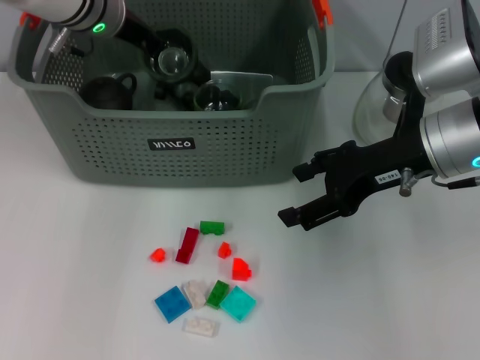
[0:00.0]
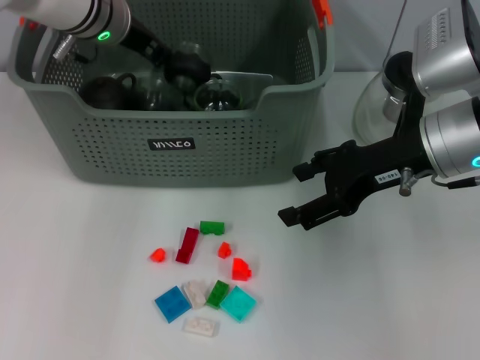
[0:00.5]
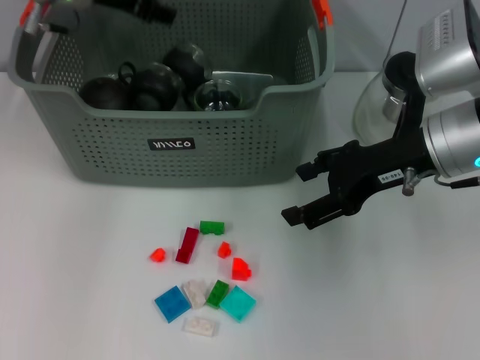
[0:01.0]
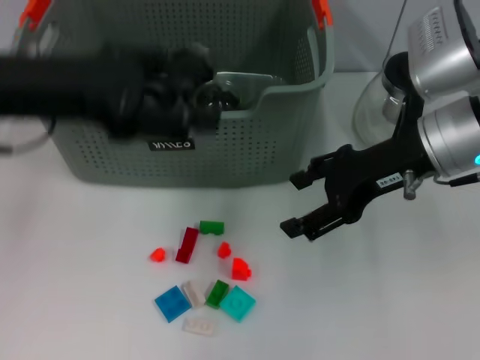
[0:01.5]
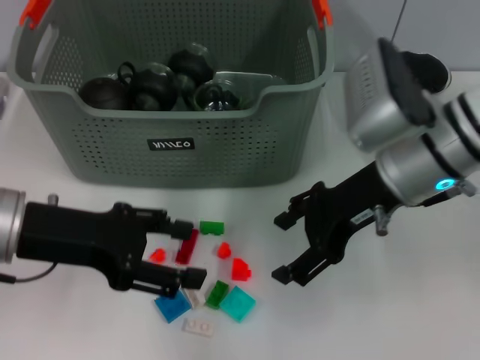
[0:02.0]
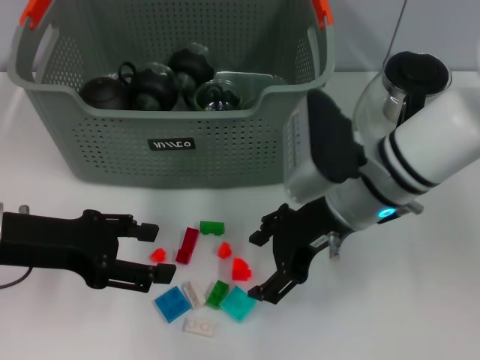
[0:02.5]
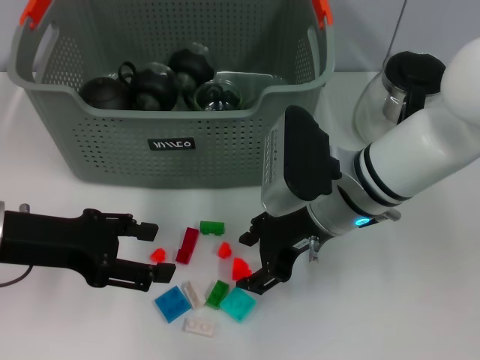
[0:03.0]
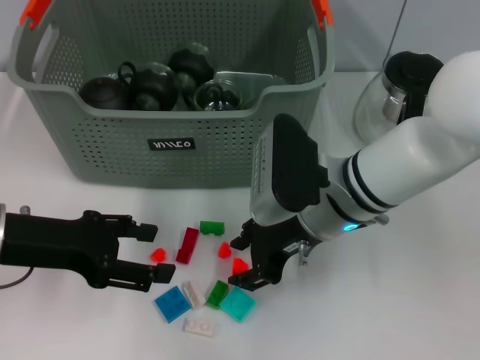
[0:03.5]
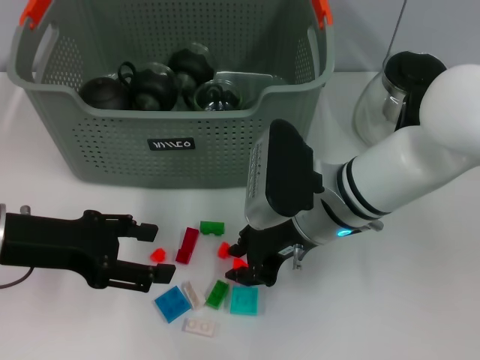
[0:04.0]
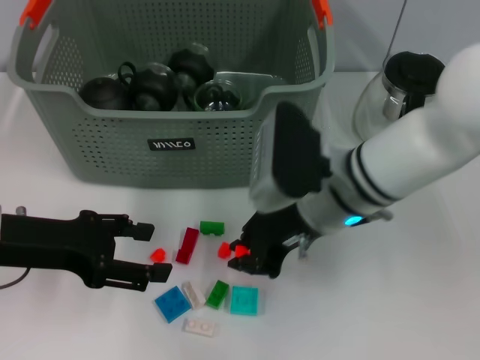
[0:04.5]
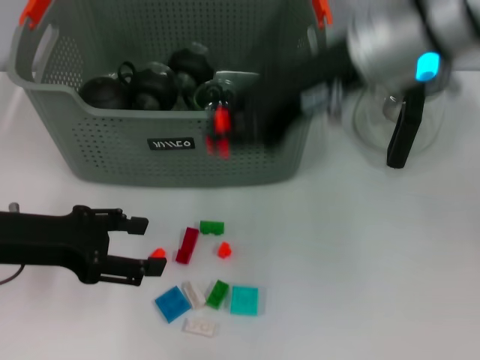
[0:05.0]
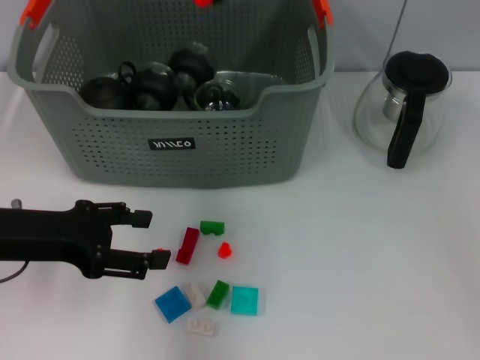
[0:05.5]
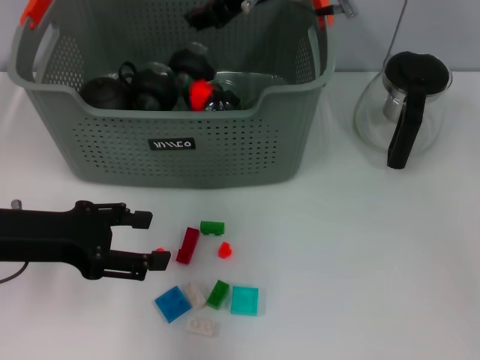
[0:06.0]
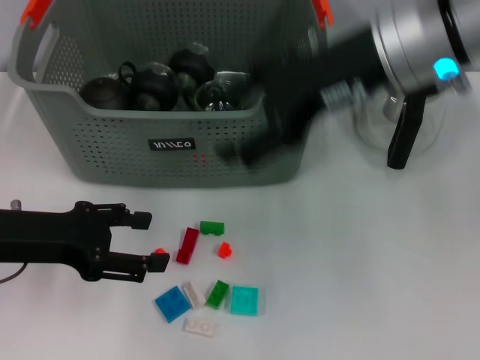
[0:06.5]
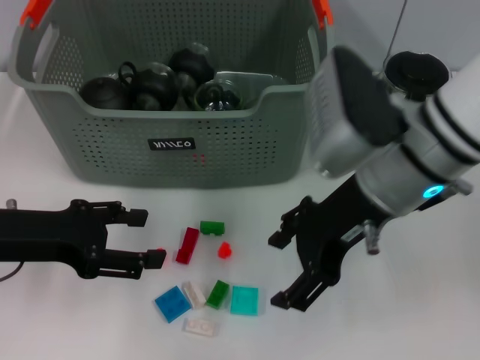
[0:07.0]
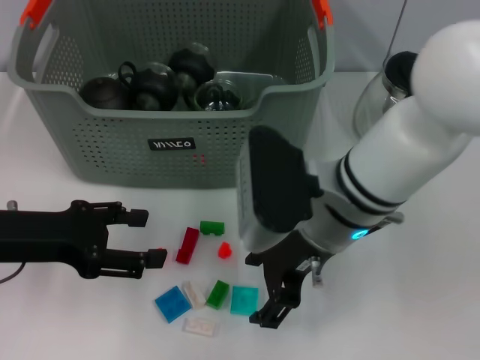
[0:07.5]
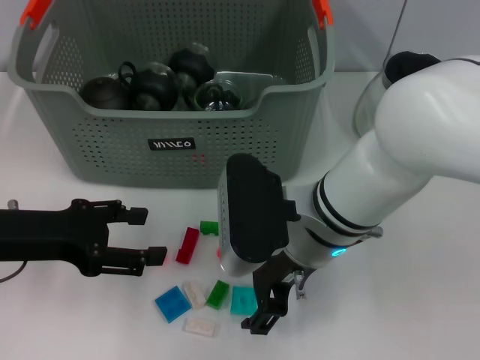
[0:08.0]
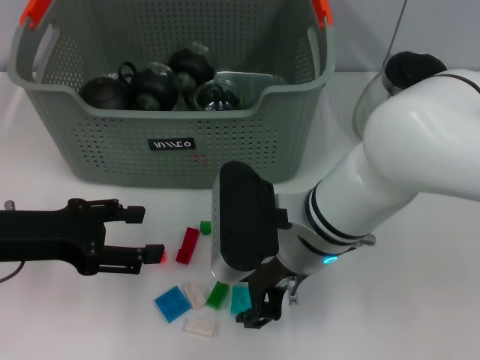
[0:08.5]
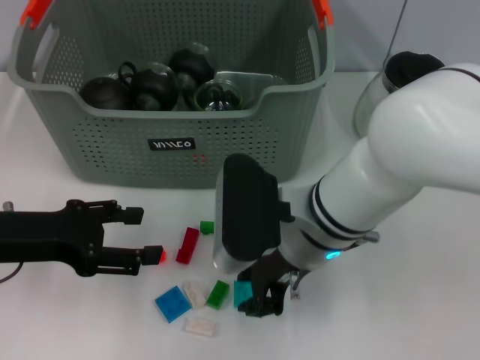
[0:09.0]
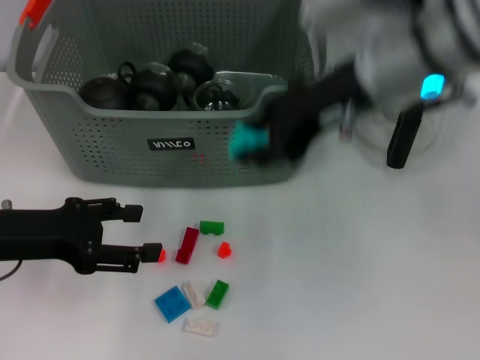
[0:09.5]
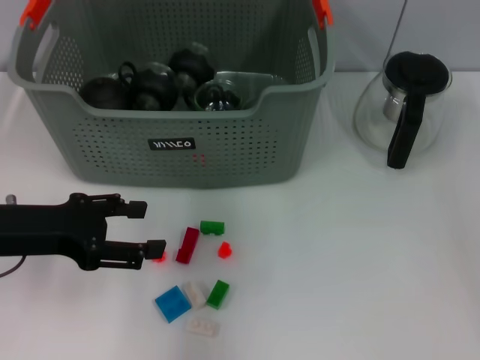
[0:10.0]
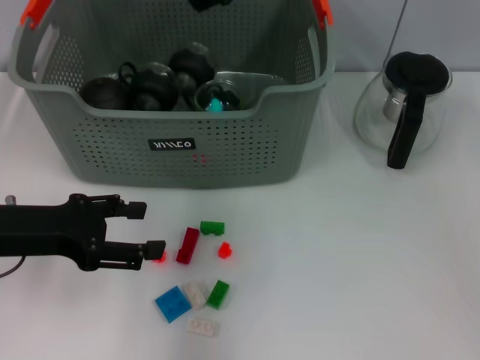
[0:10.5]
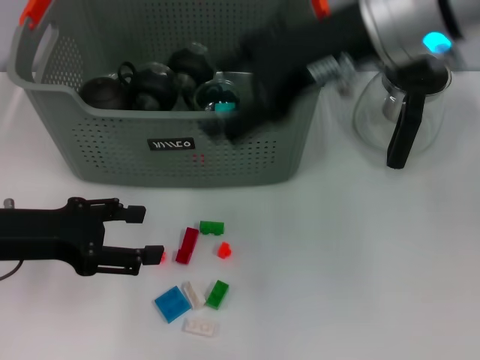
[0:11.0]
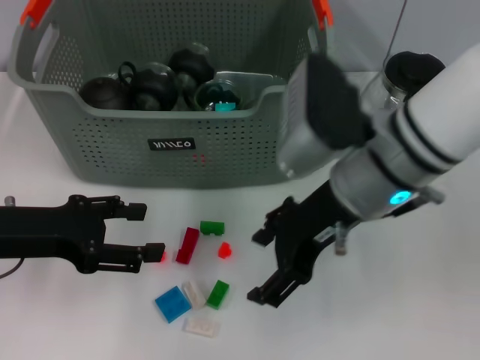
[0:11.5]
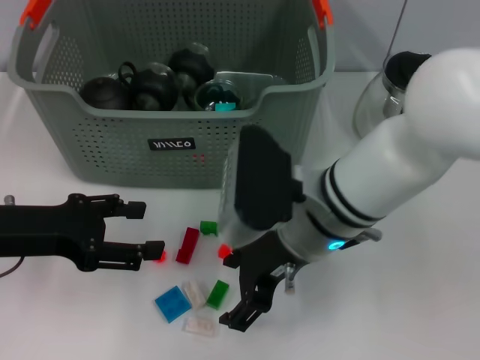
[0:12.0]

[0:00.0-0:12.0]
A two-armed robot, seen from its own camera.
Task of the whole recording: pick up the teacup on the table and place it into the storage bin, pick up the block on the table and place it into the storage bin.
Step, 0:01.0 to 0:04.0: Grasp the orange block with right gripper.
Step, 0:04.5 to 0:05.5: Place the orange block in the storage box with right gripper.
Step, 0:06.0 to 0:08.5: Grasp the light blue block with right gripper.
Step, 0:09.0 to 0:10.5: Place the light blue block in the storage box with right gripper.
0:00.0 to 0:02.0: The left gripper moves backward, about 20 cm, and opens.
0:02.0 to 0:04.0: The right gripper travels to the left and downward by about 10 cm, and closes up.
0:04.0 to 0:06.0: The right gripper travels upward and forward by approximately 20 cm.
0:06.0 to 0:08.0: The right gripper shifts about 20 cm downward and backward, and opens its fingers.
0:08.0 to 0:10.0: The right gripper shifts about 25 cm upward and forward, and closes.
0:10.0 to 0:12.0: The right gripper shifts some 20 cm downward and backward, and opens up.

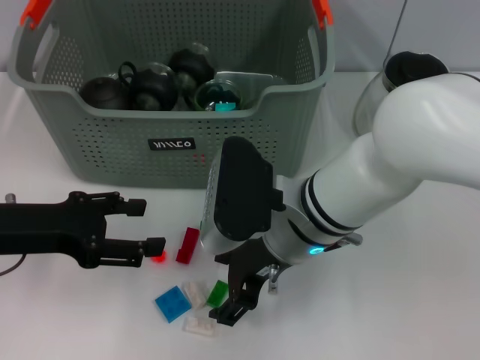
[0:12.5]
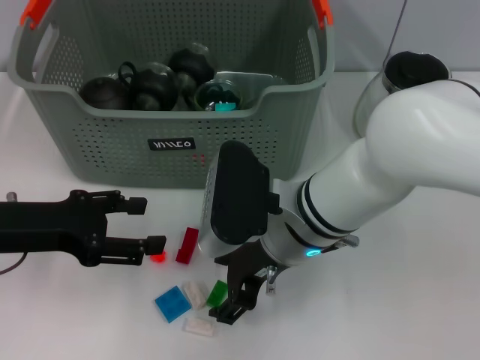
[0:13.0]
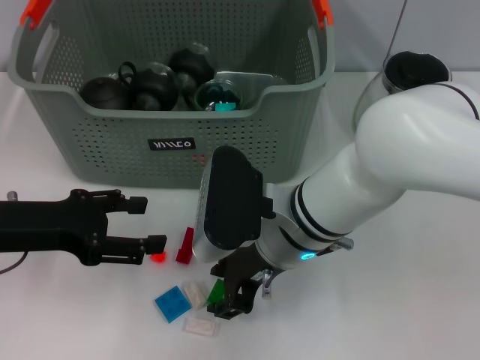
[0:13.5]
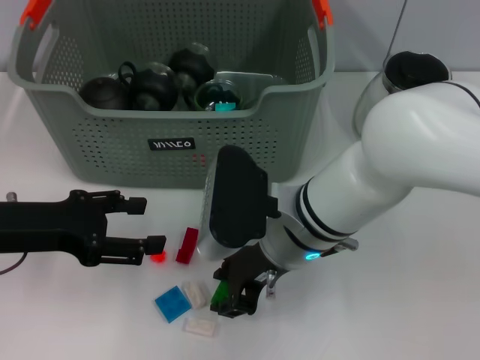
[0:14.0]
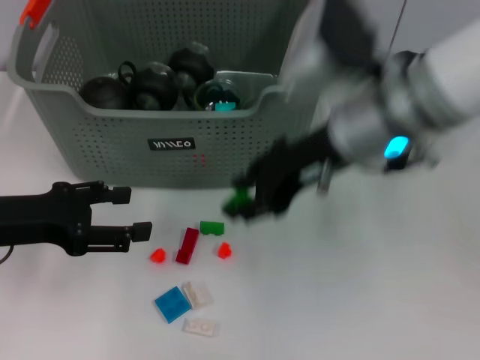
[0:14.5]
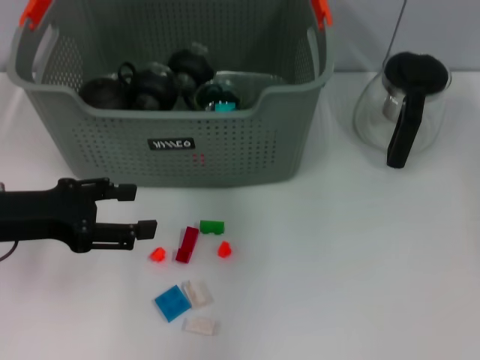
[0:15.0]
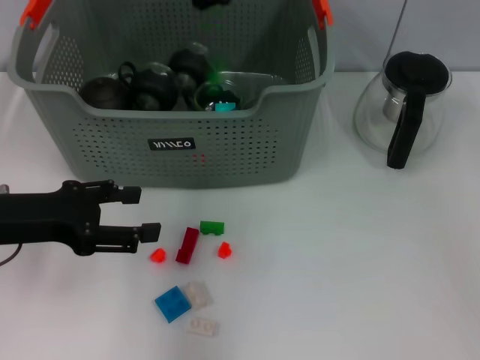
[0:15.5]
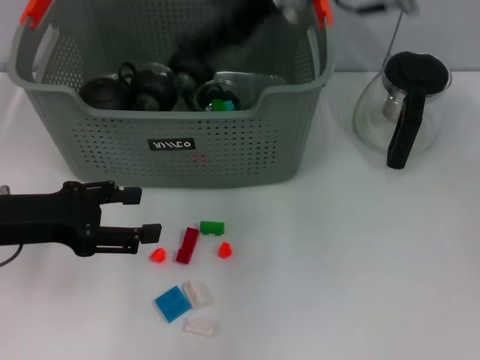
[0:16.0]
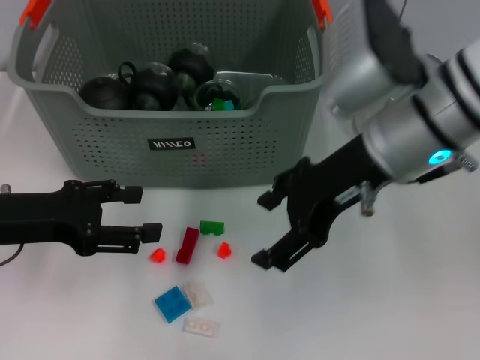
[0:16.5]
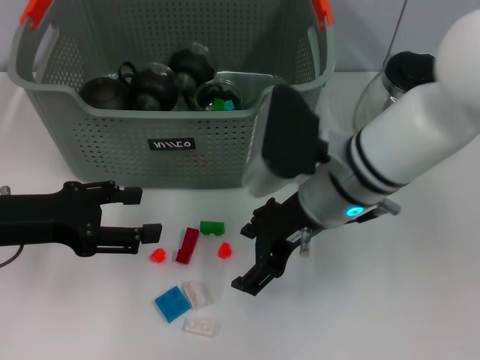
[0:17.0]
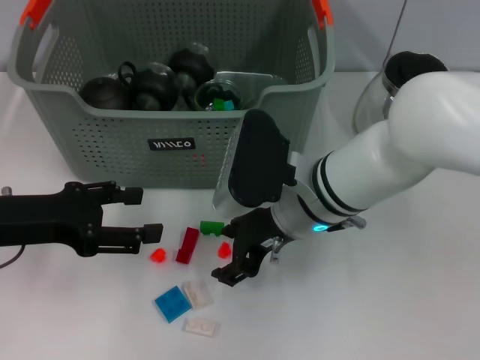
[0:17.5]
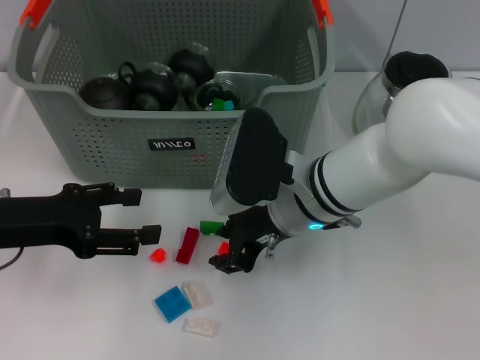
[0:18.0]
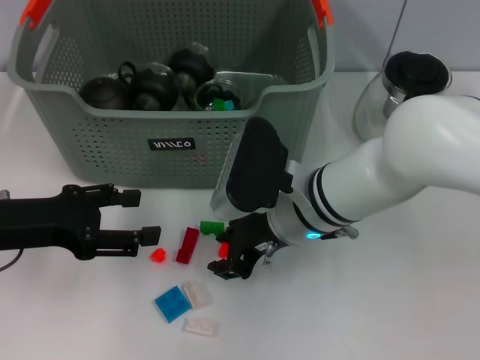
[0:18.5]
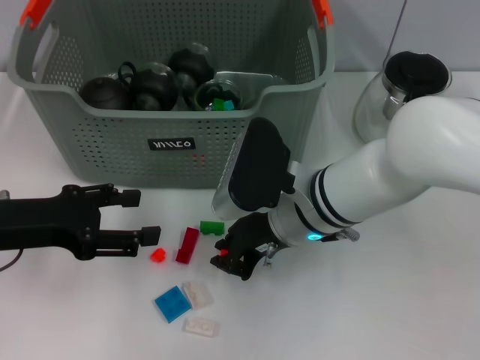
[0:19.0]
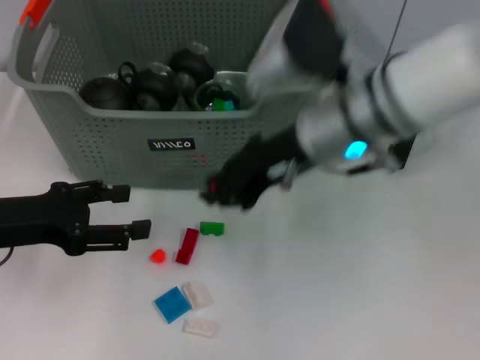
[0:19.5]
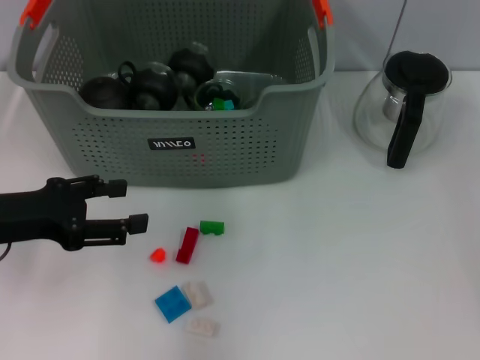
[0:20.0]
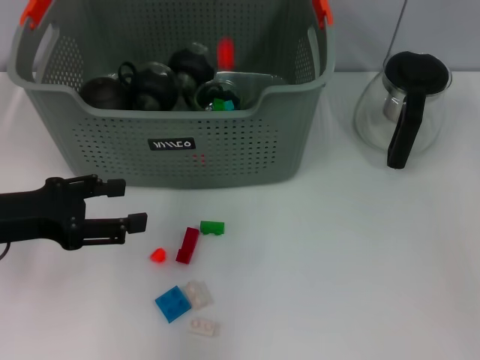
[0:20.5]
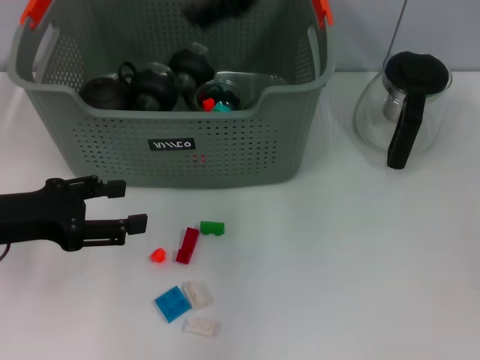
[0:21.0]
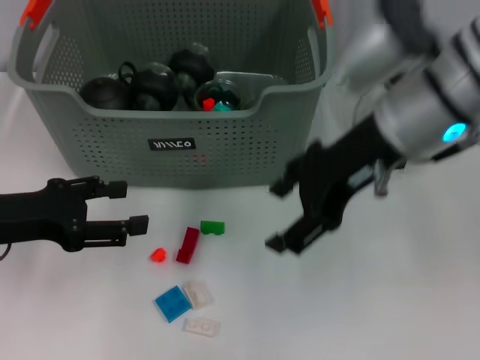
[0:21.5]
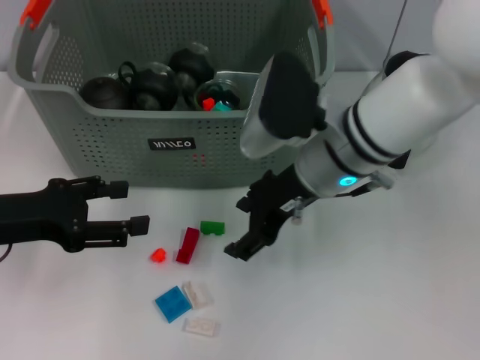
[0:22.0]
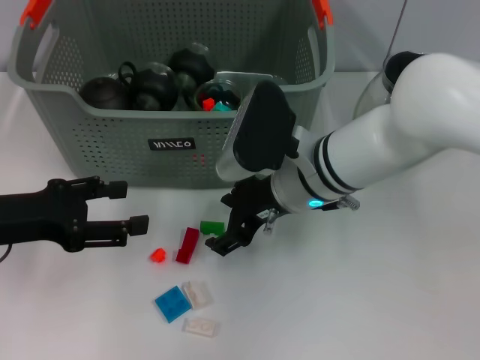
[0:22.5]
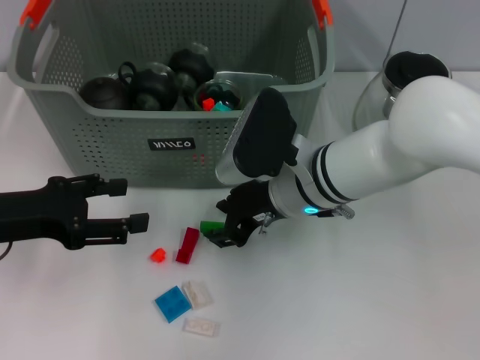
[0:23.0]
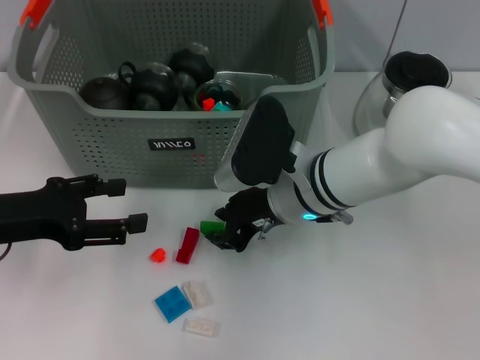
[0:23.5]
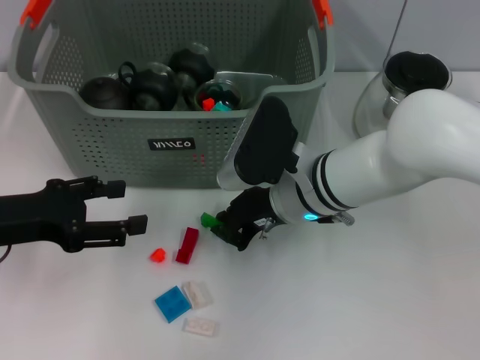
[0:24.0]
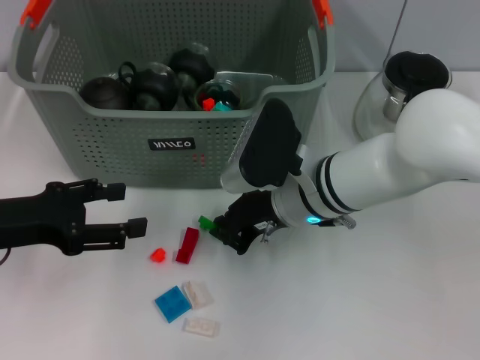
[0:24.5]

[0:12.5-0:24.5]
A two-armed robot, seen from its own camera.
Task of the whole recording: pick up the teacup on the table and place it into the storage bin, pick up the block on the table and place it into the storage bin.
Step, 0:14.0 to 0:15.5: Place the green block in the storage box with right gripper.
Step, 0:16.0 to 0:18.5: Grasp the orange block with right gripper.
Step, 0:19.5 to 0:20.5: Place the orange block in the storage box with right gripper.
Step, 0:21.0 to 0:23.5: Grasp the green block with right gripper.
0:12.5 to 0:14.5: The right gripper heads upward and to the right, covering about 10 cm, and closes.
0:14.5 to 0:16.5: The right gripper travels upward and back again, some 15 cm each way, and opens up.
0:16.5 to 0:18.5: The right gripper shifts roughly 15 cm downward and to the left, and closes.
0:18.5 to 0:20.5: The right gripper shifts approximately 25 cm upward and forward.
0:20.5 to 0:22.5: The right gripper travels downward and backward by approximately 20 cm, and opens its fingers.
0:22.5 to 0:24.5: The right gripper closes up.

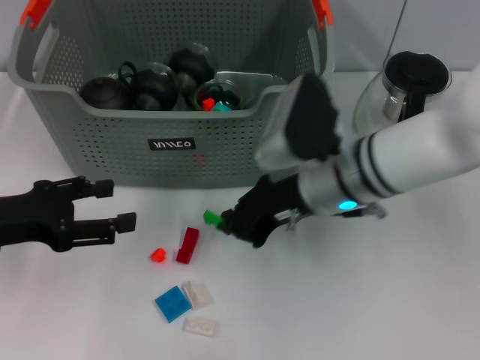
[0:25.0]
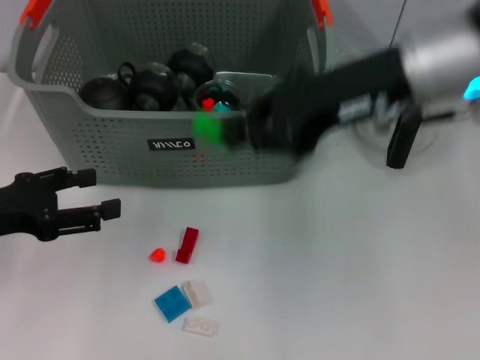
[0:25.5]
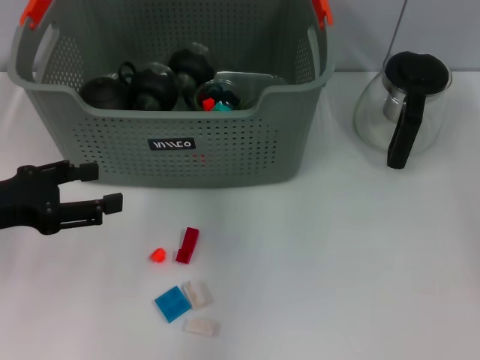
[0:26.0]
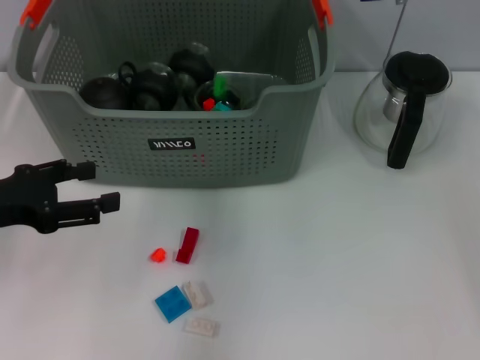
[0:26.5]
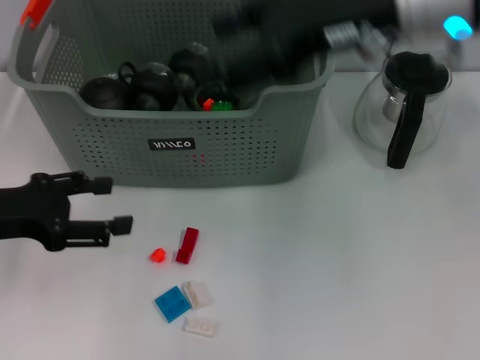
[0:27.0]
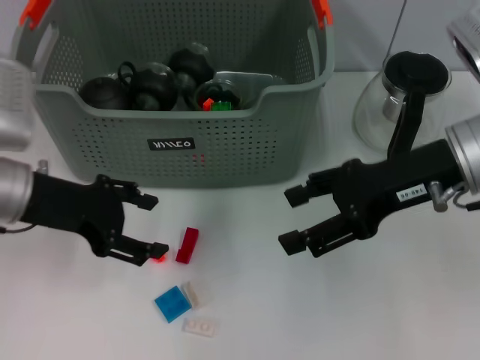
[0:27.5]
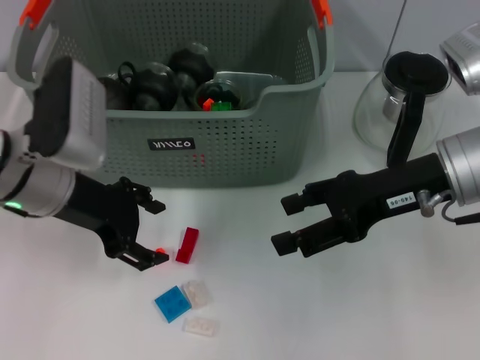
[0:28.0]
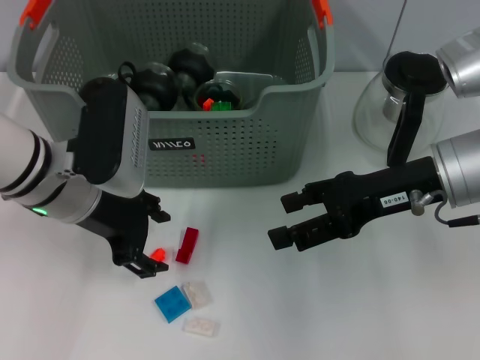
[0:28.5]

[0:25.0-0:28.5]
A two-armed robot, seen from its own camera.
Task of the whole recording: pick up the teacup on the table and place it into the storage bin, pick up the block on the table and place it into the storage bin.
Step, 0:25.0 to 0:26.5: Place the green block in the storage box with right gripper.
0:25.0 to 0:27.0: The right gripper moves upward, approximately 15 cm, and opens its fingers.
0:27.0 to 0:28.5: The left gripper is displaced to the right and forward by approximately 15 cm. Meanwhile the right gripper shifts some 15 cm downward and to the right.
